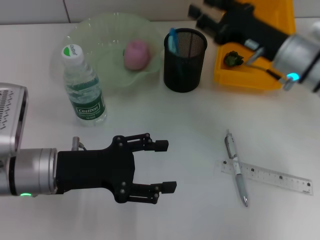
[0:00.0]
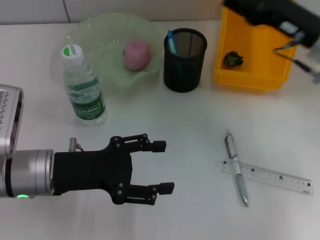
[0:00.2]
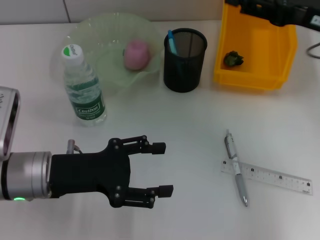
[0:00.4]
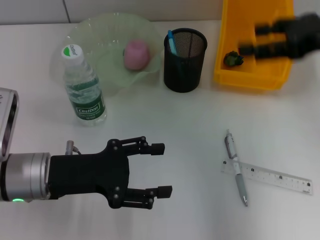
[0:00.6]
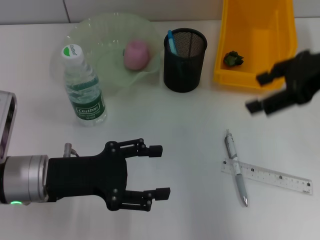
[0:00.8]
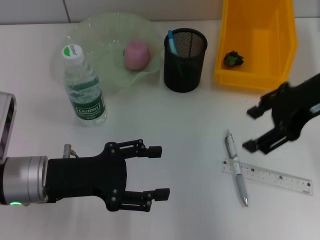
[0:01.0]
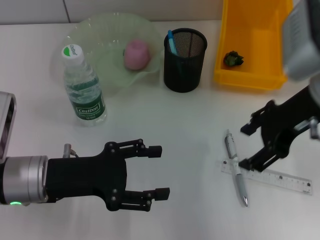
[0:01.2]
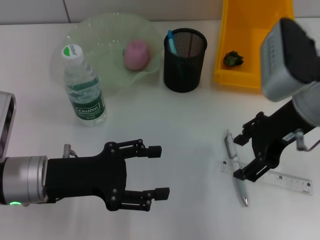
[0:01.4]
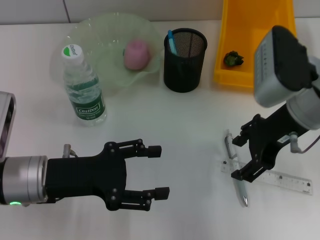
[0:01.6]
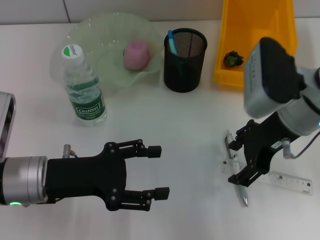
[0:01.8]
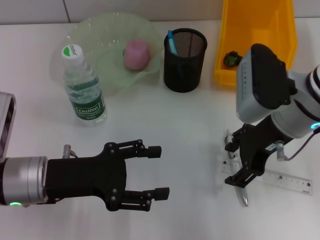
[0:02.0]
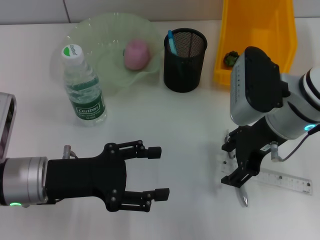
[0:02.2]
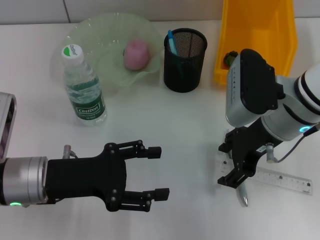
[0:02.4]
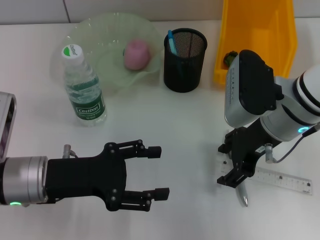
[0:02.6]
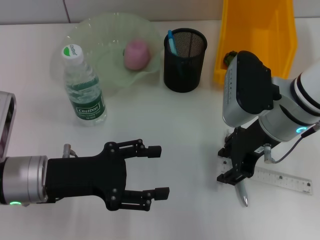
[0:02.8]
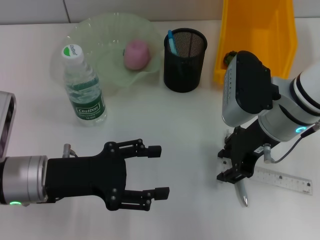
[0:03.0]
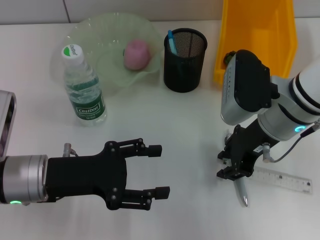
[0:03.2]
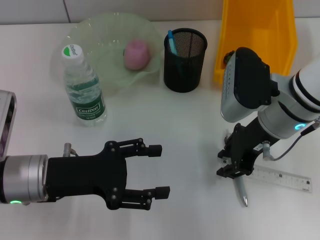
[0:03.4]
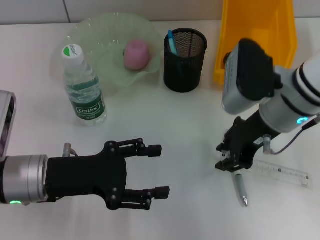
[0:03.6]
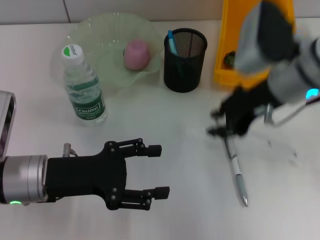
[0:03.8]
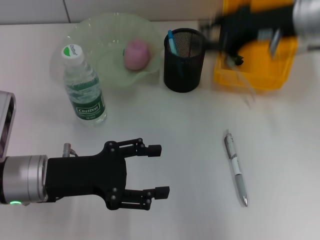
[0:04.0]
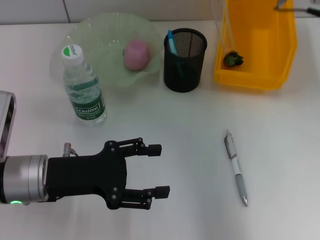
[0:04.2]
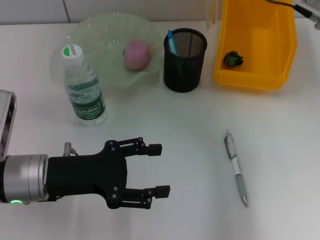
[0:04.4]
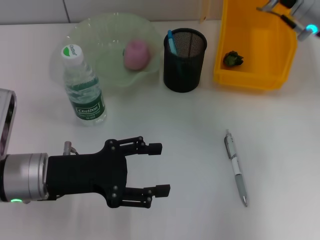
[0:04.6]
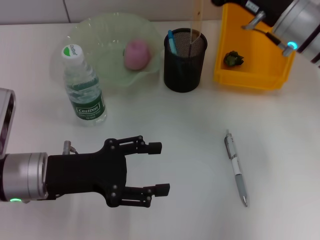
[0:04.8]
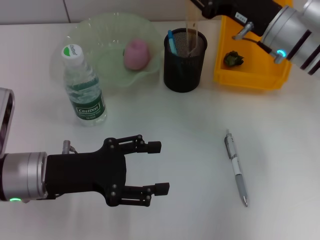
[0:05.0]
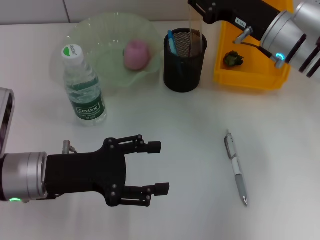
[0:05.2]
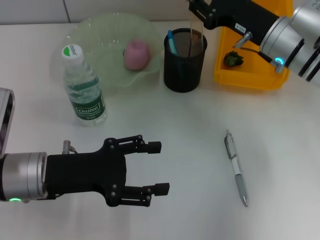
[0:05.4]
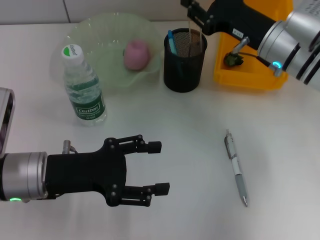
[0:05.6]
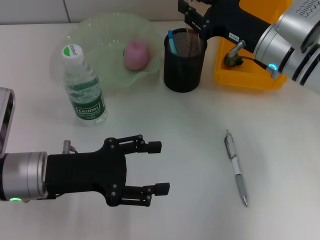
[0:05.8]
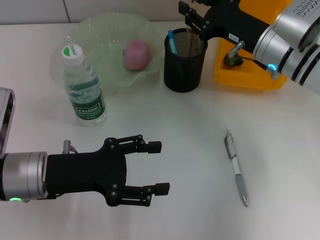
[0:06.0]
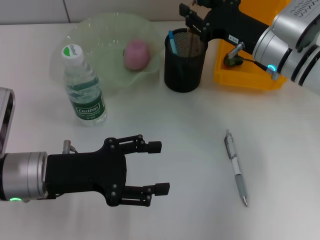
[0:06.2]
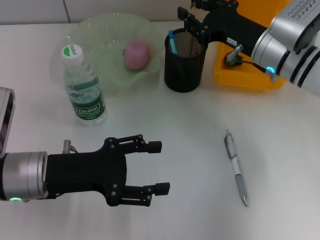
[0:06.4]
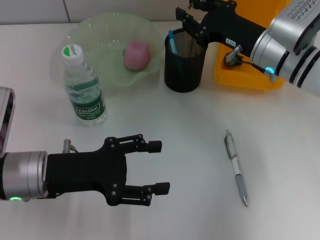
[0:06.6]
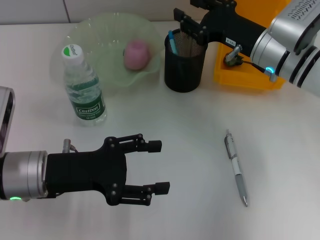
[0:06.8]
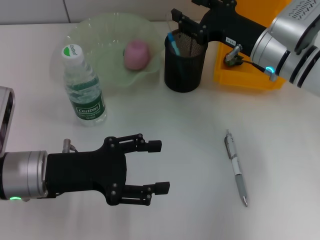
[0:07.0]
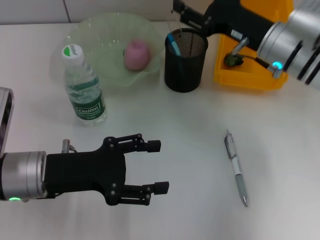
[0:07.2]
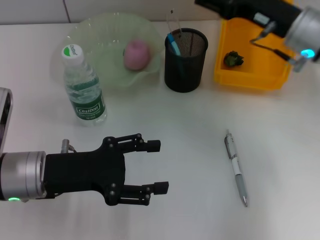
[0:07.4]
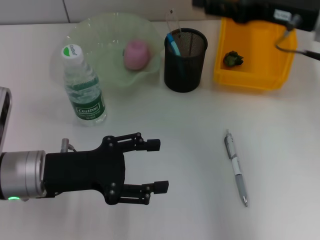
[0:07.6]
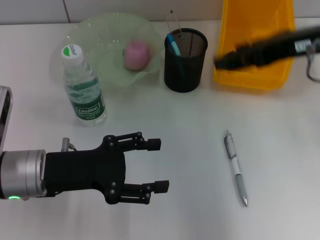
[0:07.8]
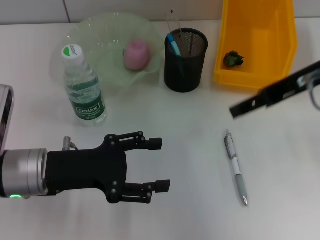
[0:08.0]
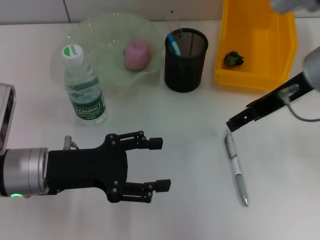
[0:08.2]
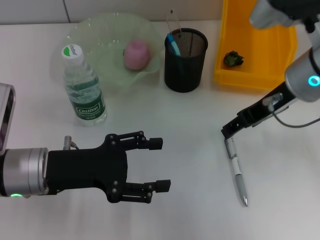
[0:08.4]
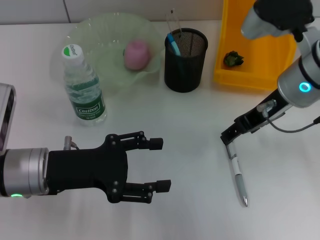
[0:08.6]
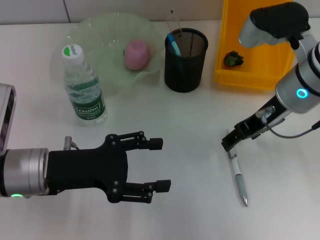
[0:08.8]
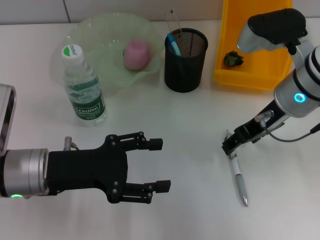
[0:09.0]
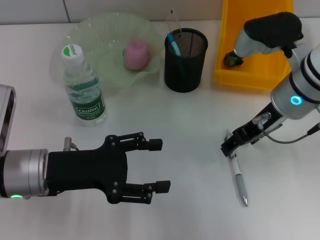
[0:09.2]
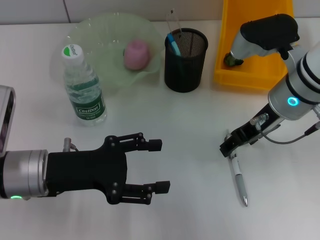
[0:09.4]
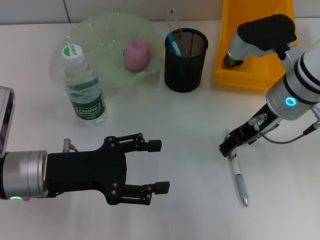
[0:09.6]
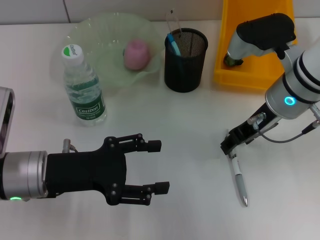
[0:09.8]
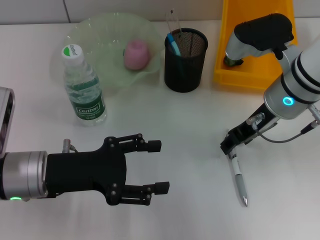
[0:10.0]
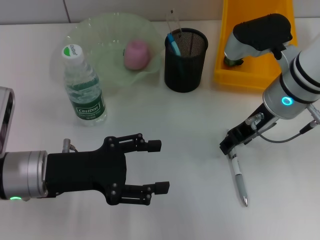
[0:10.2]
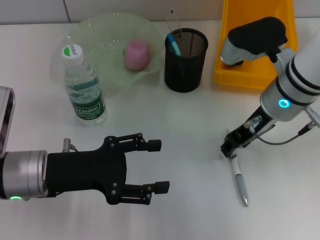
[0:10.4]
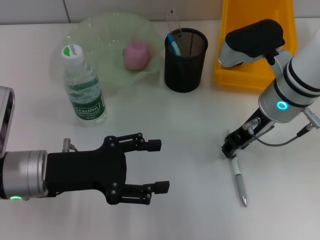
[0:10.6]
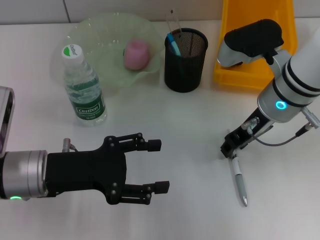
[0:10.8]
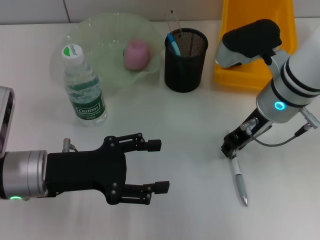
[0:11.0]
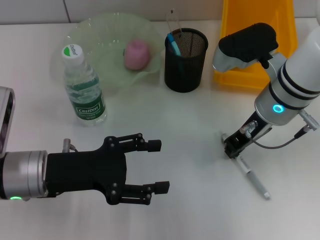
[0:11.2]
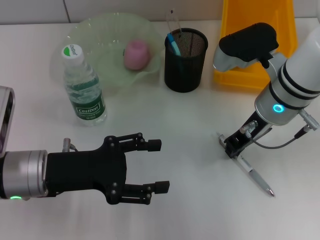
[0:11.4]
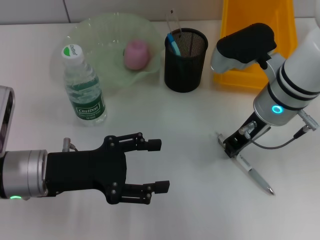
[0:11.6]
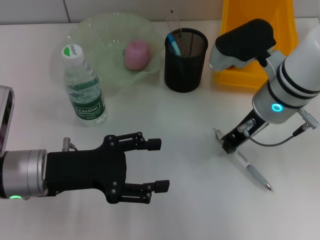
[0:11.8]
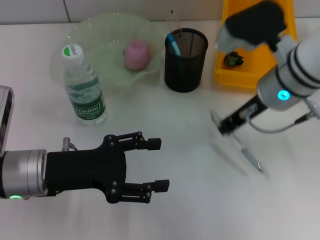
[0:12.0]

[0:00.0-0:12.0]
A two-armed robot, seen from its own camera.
Step, 0:00.0 to 0:03.2: Grab the ruler with the right hand.
Step, 0:03.4 to 0:07.0: Place the ruler into the pen holder with the right hand.
Step, 0:07.2 to 0:11.4: Grab the gray spring-action pen with the right hand.
0:00.0 to 0:01.6: The right gripper moves upward, roughly 5 cm, and opens up.
0:01.6 to 0:03.0: There are only small adjustments of the grippers.
0:03.0 to 0:04.4: The right gripper heads upward, forward and to the right, covering about 10 cm.
0:04.4 to 0:06.0: The right gripper heads downward, covering about 10 cm.
0:06.0 to 0:07.6: The right gripper travels upward by approximately 10 cm, and opens up.
0:07.6 to 0:09.0: The right gripper is displaced downward by some 5 cm.
0:09.0 to 0:10.4: The grippers stay close to where they were, moving slightly.
0:10.4 to 0:12.0: The right gripper closes.

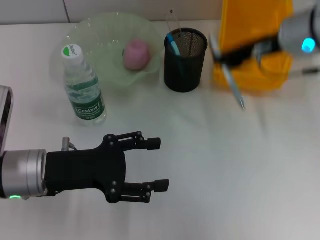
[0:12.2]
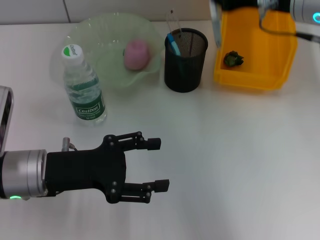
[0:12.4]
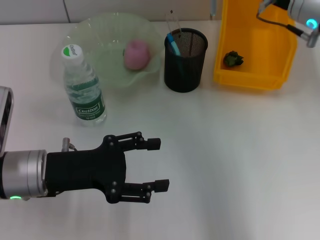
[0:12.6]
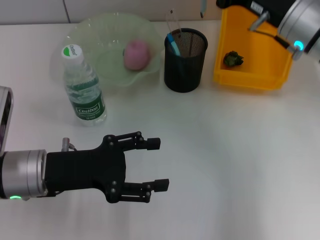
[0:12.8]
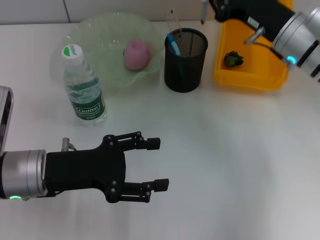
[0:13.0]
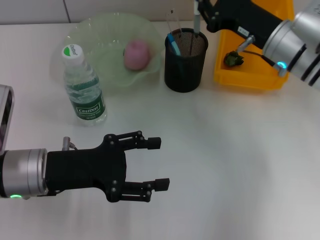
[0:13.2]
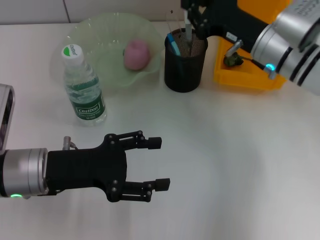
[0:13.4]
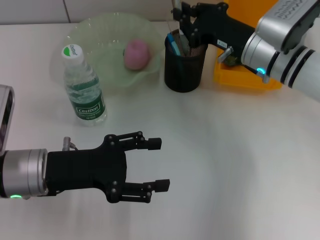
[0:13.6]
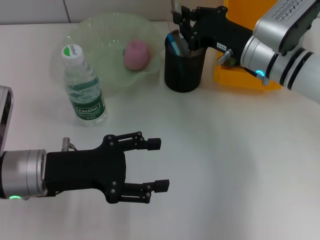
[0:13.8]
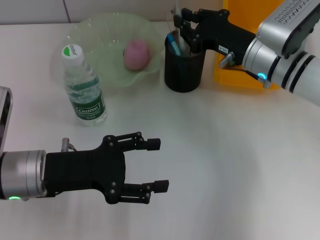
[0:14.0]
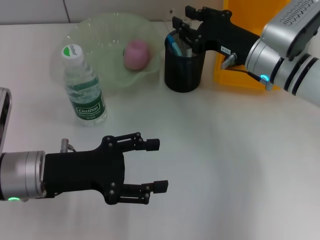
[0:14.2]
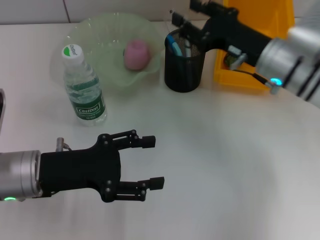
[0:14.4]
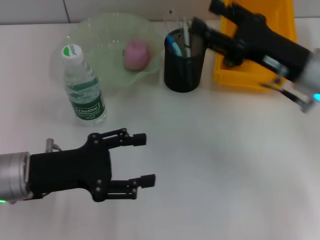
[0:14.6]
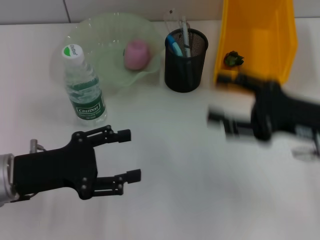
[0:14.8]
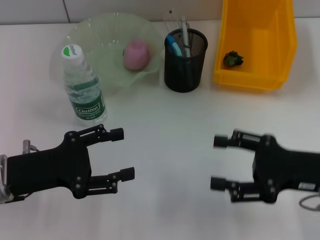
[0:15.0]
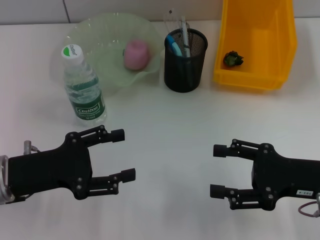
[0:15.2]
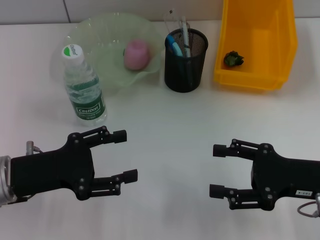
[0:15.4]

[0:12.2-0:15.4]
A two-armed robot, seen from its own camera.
Step, 0:12.2 to 0:14.2: Place the gray spring-action pen into the pen holder with the right hand.
0:12.2 to 0:13.8: The right gripper shifts about 10 cm downward.
0:13.8 to 0:15.4: The right gripper travels backward and to the right by about 20 cm, and opens.
